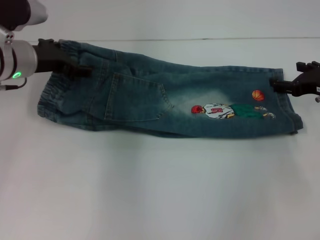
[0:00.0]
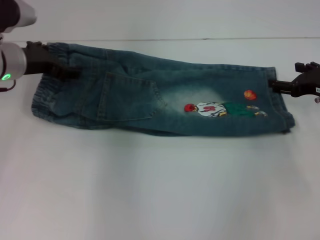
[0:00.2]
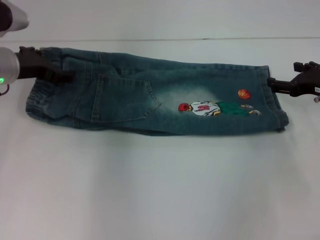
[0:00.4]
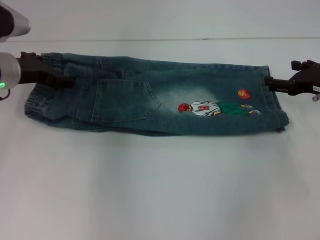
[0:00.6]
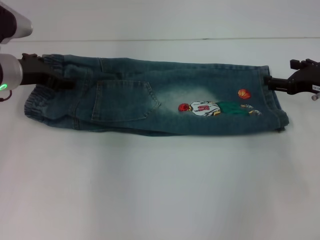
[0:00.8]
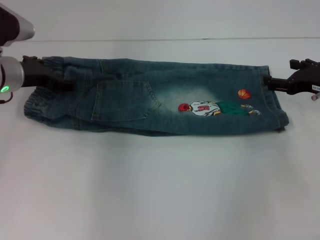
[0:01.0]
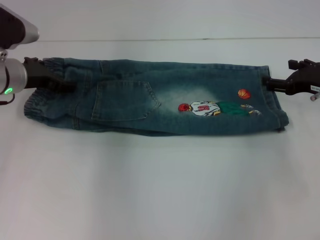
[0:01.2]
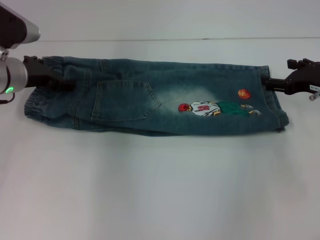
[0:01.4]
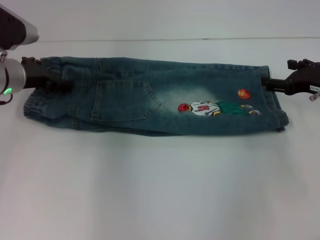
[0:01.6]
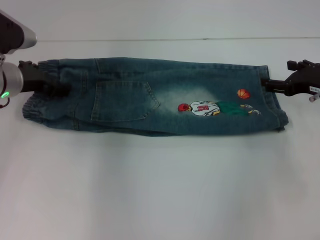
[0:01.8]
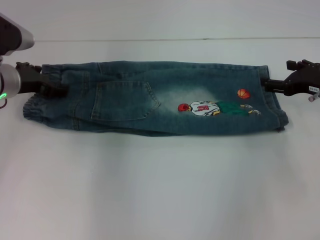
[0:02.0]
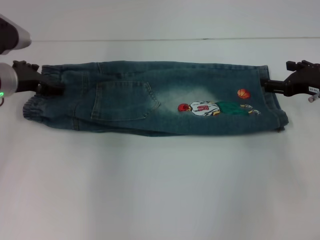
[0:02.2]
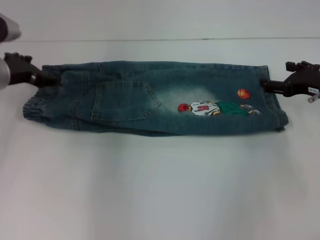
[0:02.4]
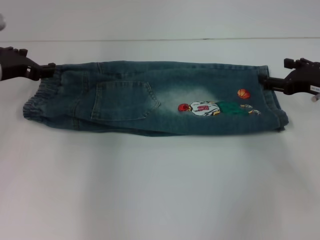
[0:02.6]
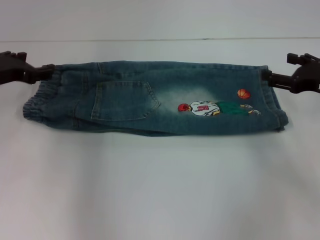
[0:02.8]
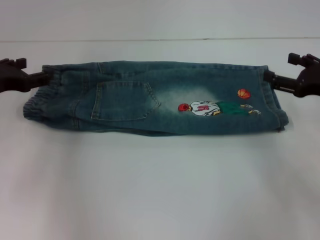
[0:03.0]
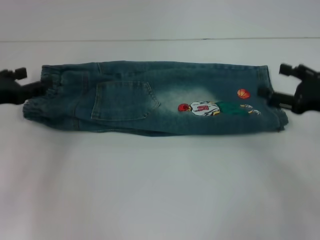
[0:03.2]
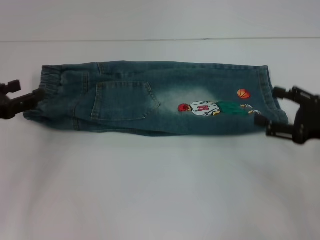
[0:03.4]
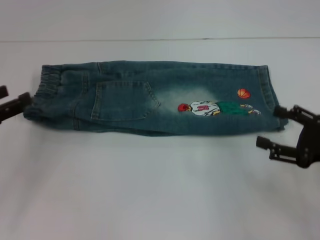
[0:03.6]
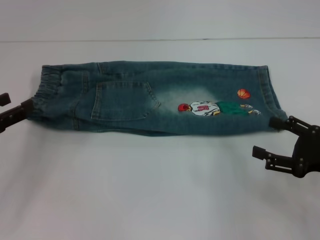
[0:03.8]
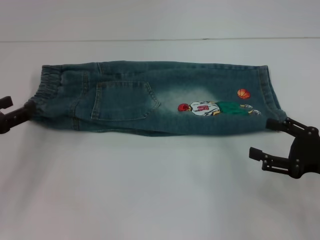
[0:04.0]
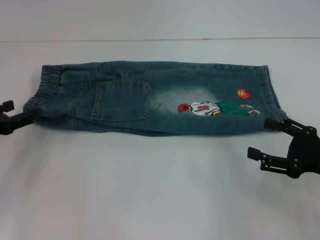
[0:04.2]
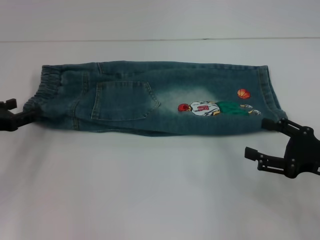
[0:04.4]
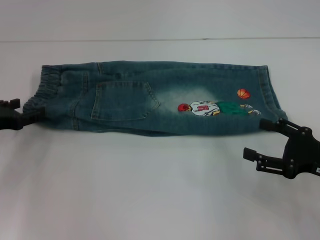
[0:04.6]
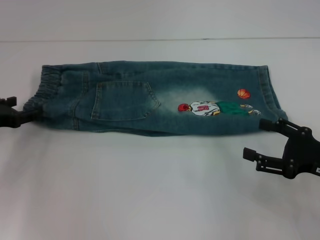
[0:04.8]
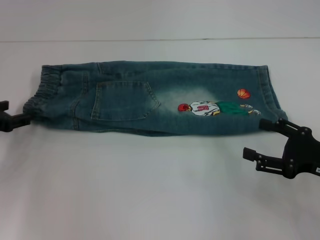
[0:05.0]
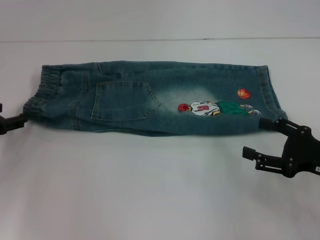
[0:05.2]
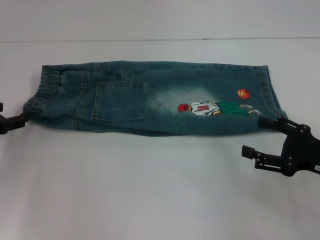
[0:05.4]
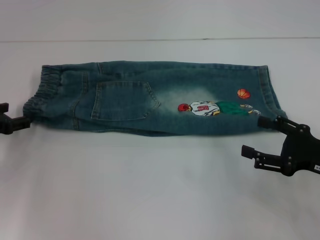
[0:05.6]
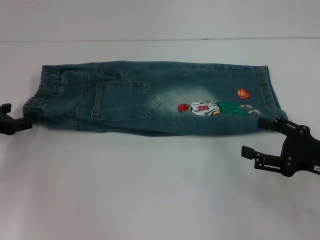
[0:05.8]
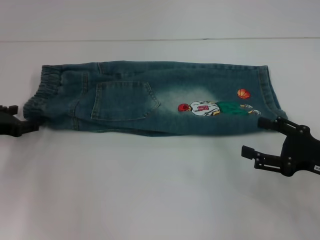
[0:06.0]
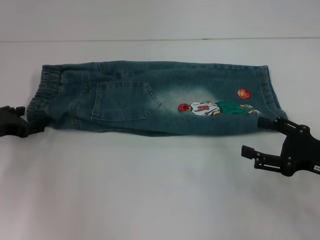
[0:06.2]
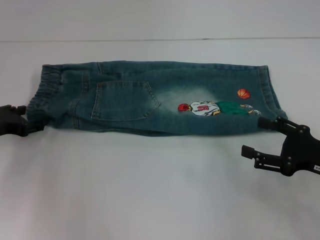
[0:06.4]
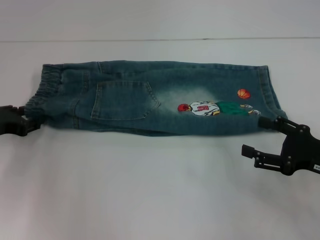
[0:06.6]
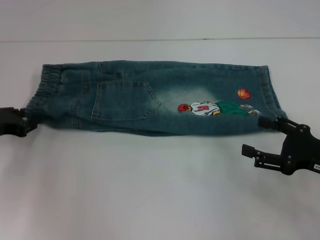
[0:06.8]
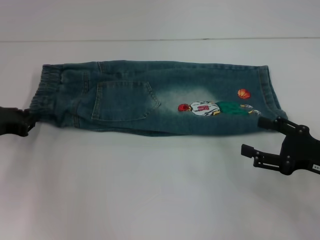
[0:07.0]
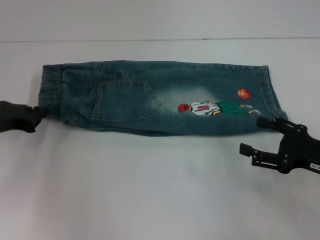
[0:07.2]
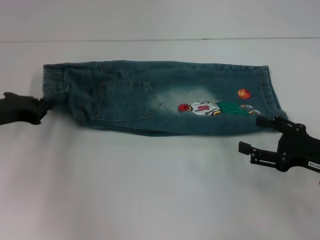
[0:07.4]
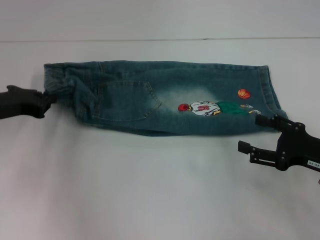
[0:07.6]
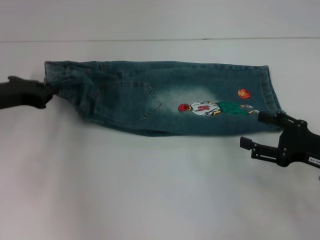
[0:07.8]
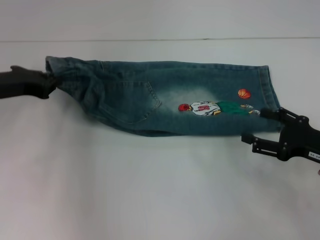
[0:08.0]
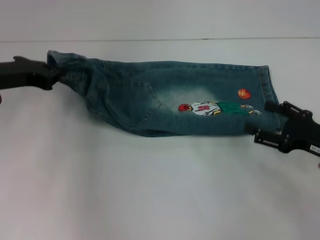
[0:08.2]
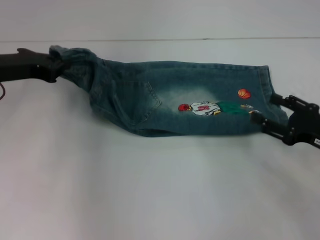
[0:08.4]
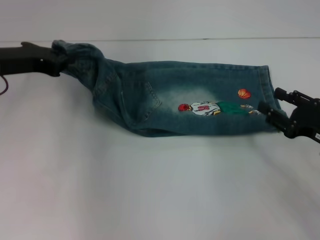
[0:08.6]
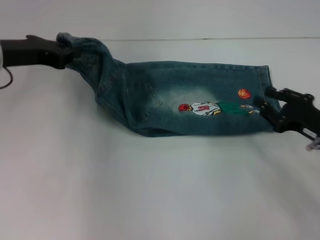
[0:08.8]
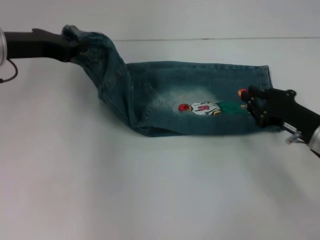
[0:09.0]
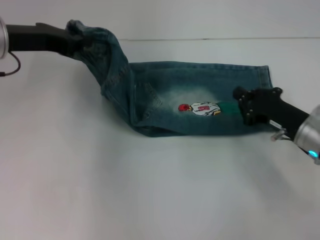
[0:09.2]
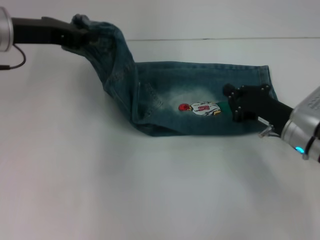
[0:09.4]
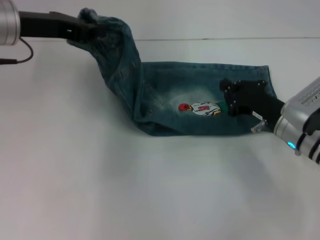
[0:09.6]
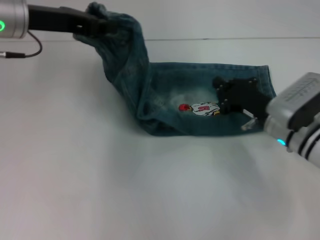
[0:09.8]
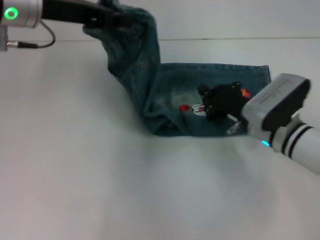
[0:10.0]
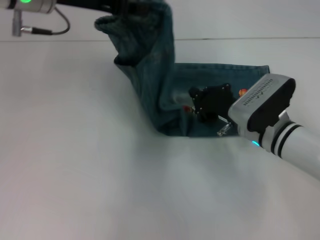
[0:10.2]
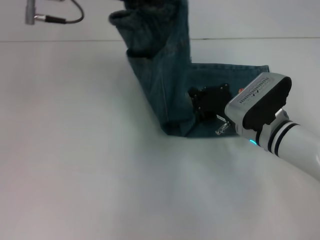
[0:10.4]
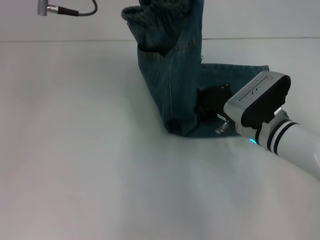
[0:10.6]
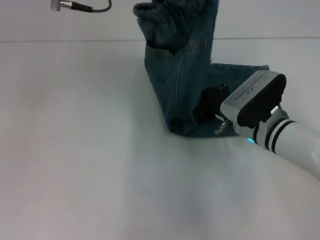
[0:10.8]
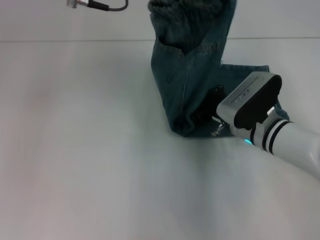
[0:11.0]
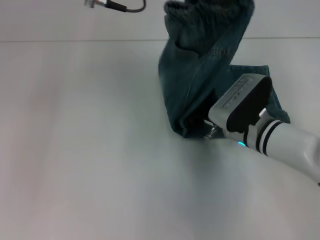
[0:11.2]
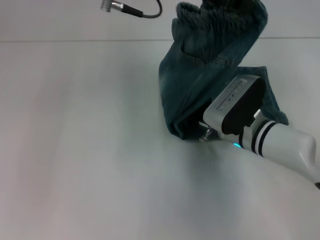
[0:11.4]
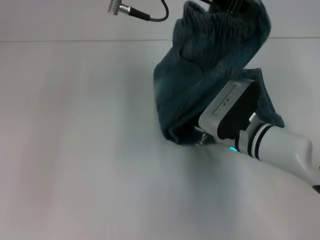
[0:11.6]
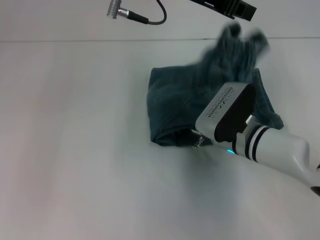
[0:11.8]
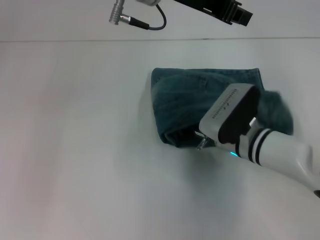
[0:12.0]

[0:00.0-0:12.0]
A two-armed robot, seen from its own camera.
Step, 0:00.0 to 0:02.4: Fold upward with your right hand.
Step, 0:02.6 to 0:07.4: Hold the waistband with your left hand.
0:00.0 to 0:01.6: The grippers move only a little.
0:01.6 to 0:03.0: The left gripper heads backward and to the left, covering approximately 10 cm.
0:03.0 to 0:04.4: The left gripper heads downward, covering approximately 5 cm, while the right gripper moves backward, about 10 cm.
0:04.4 to 0:06.0: The grippers move only a little.
0:06.0 to 0:07.6: The left gripper ends up some 5 cm from where it was, and closes.
0:07.6 to 0:09.0: The right gripper moves approximately 5 cm, and closes; the left gripper is displaced upward by approximately 10 cm.
0:09.0 to 0:10.4: The right gripper goes approximately 10 cm to the left, and closes its fingers; the left gripper shifts roughly 15 cm to the right and upward.
0:10.4 to 0:12.0: The left gripper goes roughly 10 cm to the right.

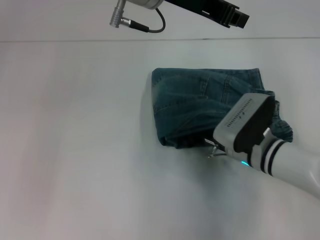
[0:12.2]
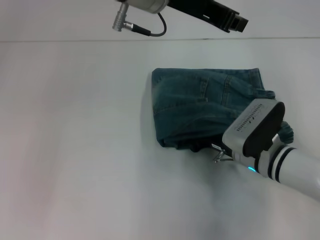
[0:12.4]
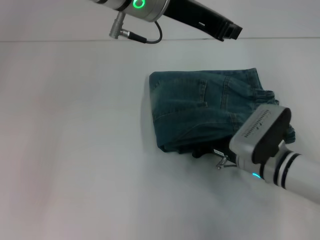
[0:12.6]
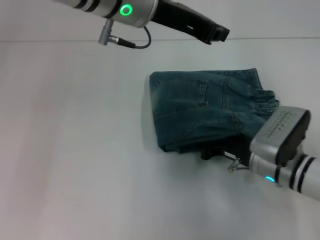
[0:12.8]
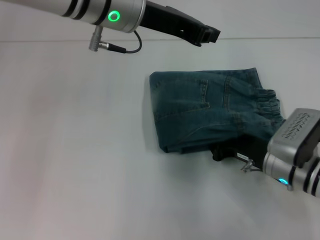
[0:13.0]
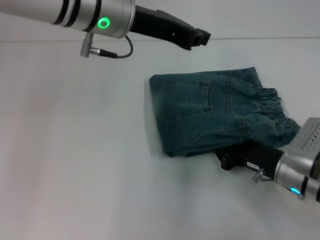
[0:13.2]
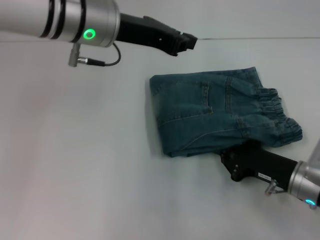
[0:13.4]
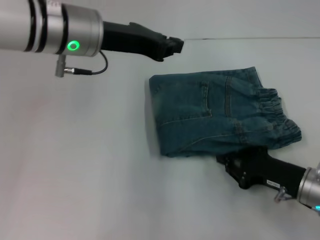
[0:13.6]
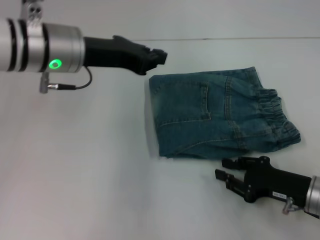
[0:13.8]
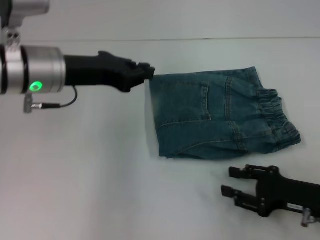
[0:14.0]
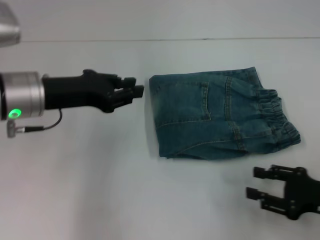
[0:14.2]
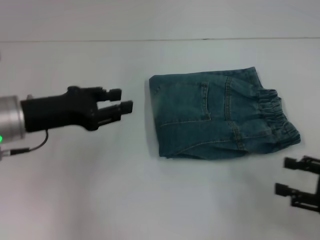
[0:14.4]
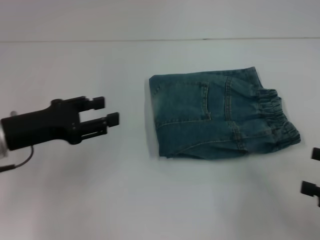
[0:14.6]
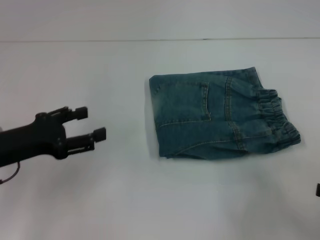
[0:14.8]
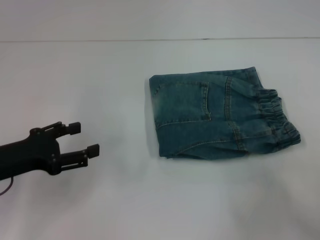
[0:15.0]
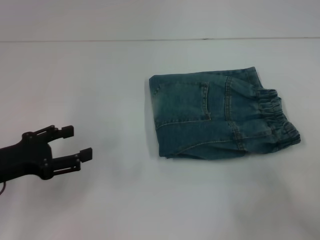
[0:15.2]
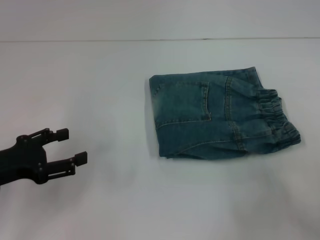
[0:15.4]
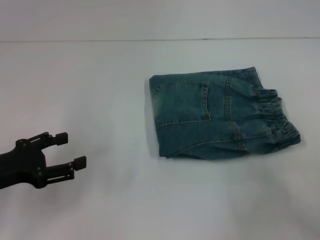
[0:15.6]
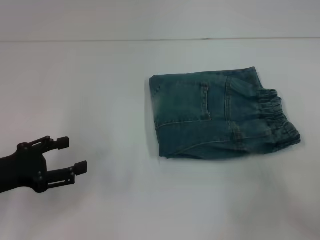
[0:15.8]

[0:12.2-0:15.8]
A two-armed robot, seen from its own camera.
0:12.2 to 0:14.0: The left gripper is displaced to the left and downward by about 15 cm; the right gripper travels to the right and backward by approximately 15 cm.
0:14.0 to 0:15.8: The right gripper shifts approximately 15 cm to the right, upward and backward, and opens, while the left gripper heads to the left, backward and downward, covering approximately 20 cm, and opens.
